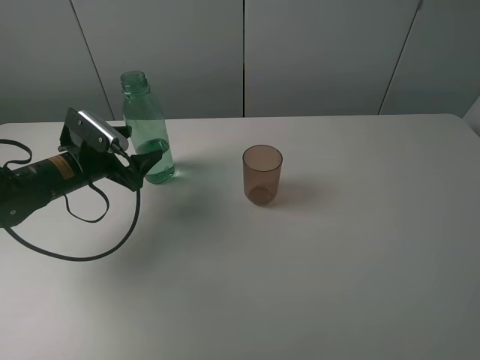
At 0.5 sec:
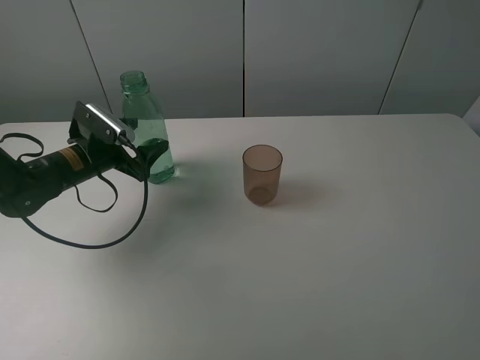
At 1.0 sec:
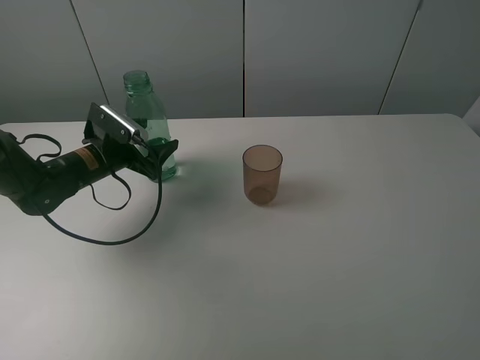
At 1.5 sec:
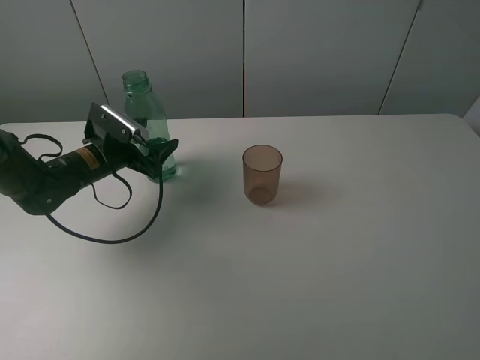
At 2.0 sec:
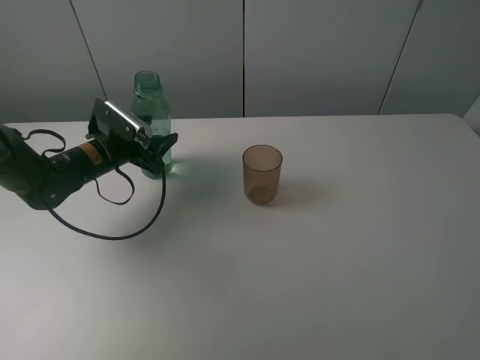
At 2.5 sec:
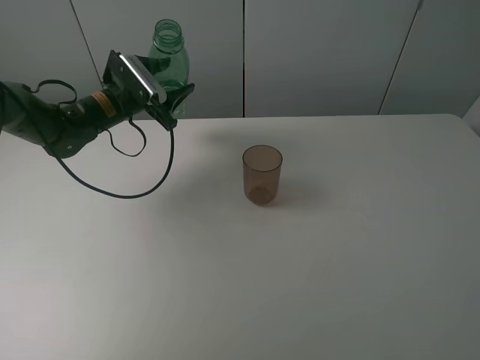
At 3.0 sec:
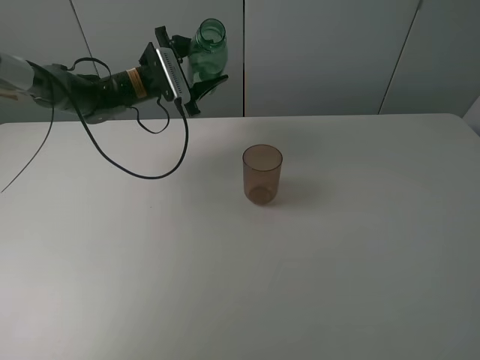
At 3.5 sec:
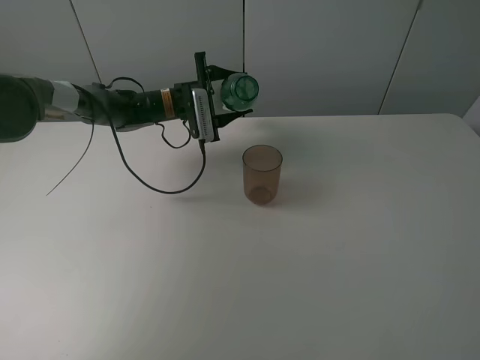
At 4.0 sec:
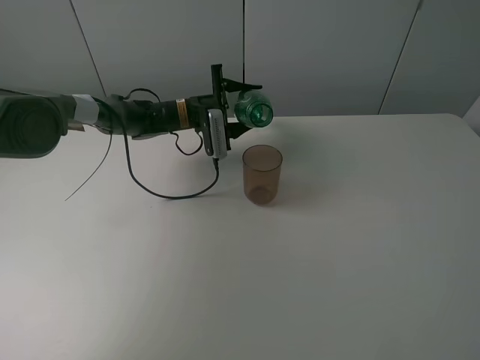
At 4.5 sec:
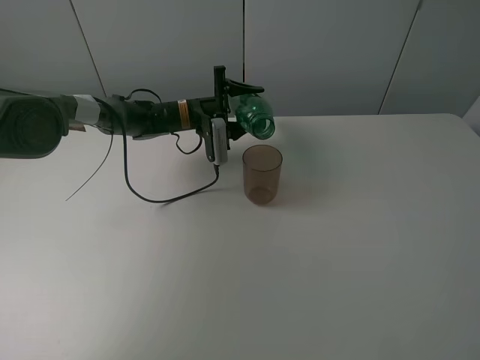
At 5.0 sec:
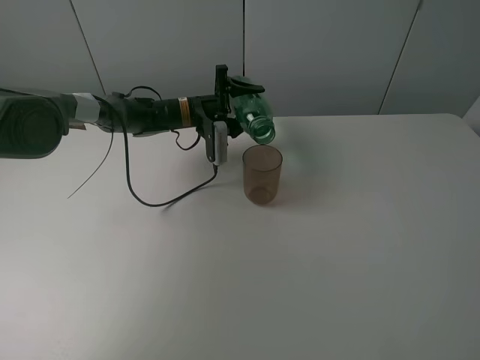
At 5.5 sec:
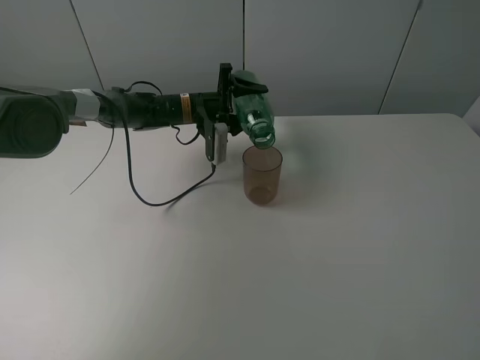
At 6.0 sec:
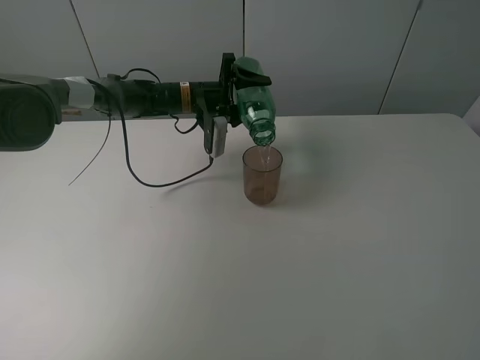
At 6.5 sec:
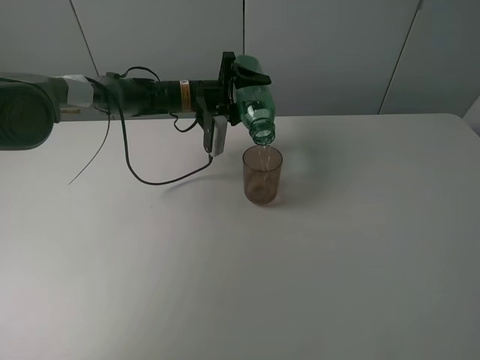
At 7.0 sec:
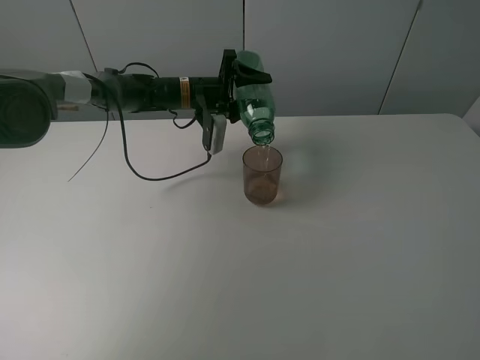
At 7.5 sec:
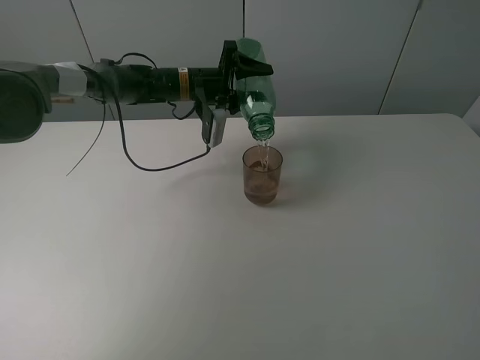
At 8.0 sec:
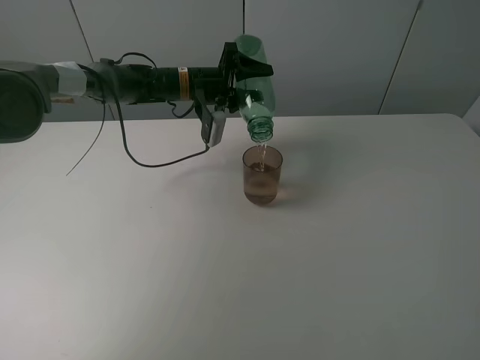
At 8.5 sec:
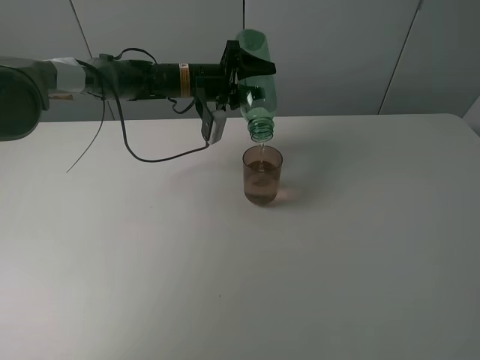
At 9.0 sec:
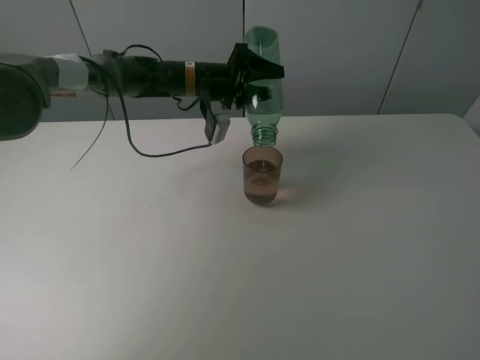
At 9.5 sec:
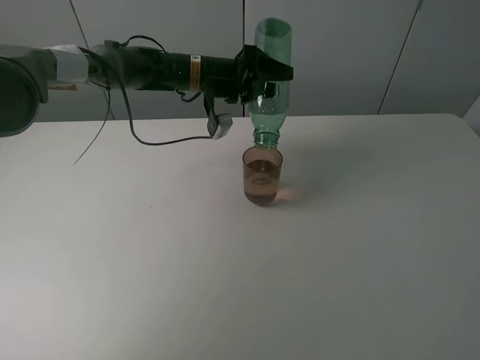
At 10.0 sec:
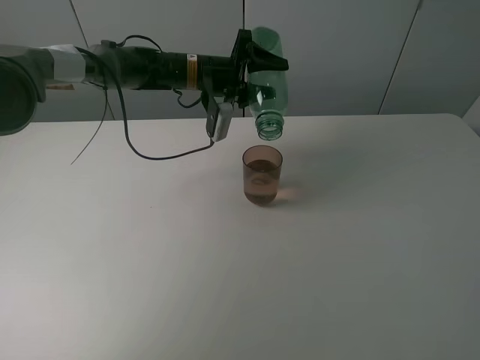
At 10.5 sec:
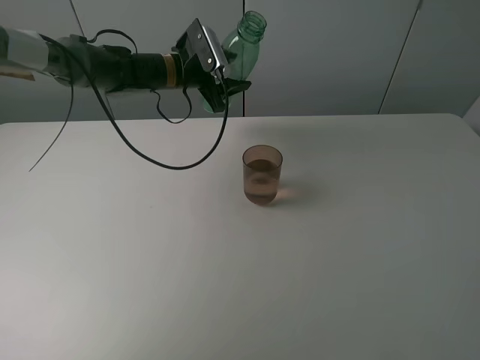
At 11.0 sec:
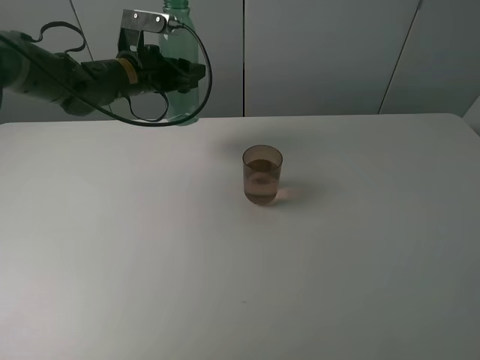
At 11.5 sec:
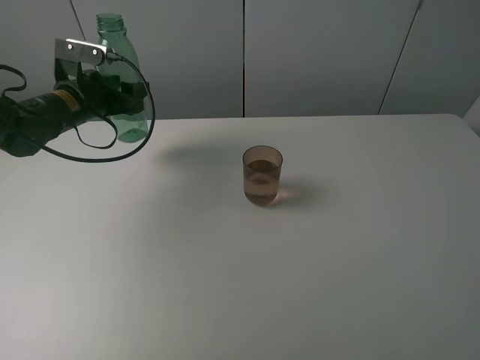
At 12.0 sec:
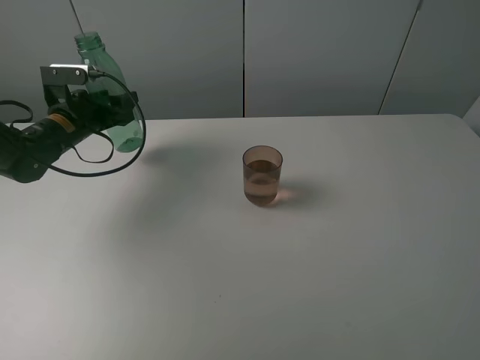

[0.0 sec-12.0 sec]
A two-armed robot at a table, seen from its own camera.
Task of the whole recording: pick up the bottle filled with water and pour it into the pink cup.
Step, 2.0 sec to 9.0 sec: Pour water from green bottle to pink cup with the left gripper.
0.0 sec to 2.0 sec: The left gripper closes up.
2.0 sec to 4.0 sec: The left gripper goes about 20 cm to the right and forward.
6.0 sec to 8.0 sec: The grippers move only a little.
8.0 sec to 10.0 sec: The grippers stay close to where they were, moving slightly.
10.0 sec to 12.0 sec: The left gripper moves to the left, about 20 cm.

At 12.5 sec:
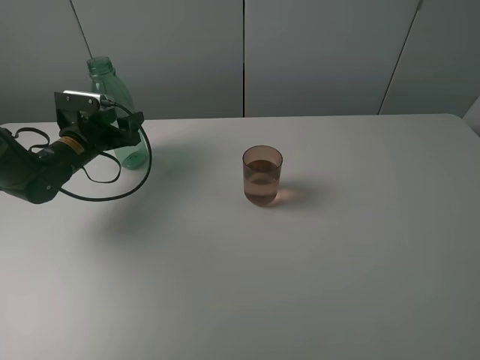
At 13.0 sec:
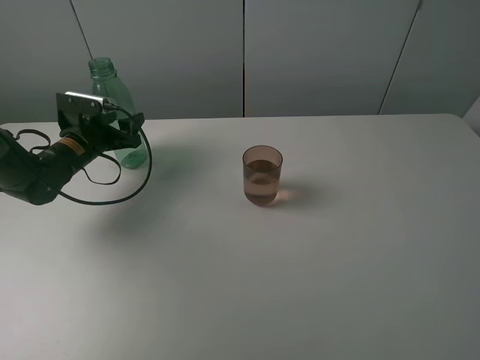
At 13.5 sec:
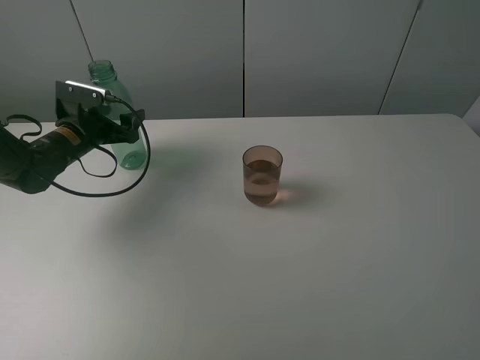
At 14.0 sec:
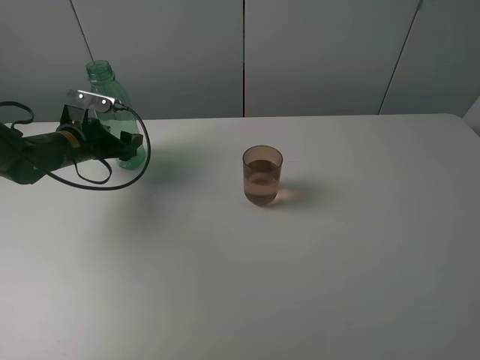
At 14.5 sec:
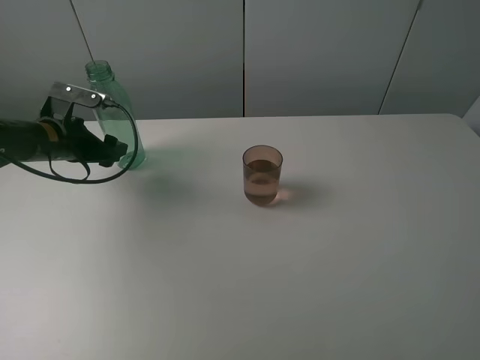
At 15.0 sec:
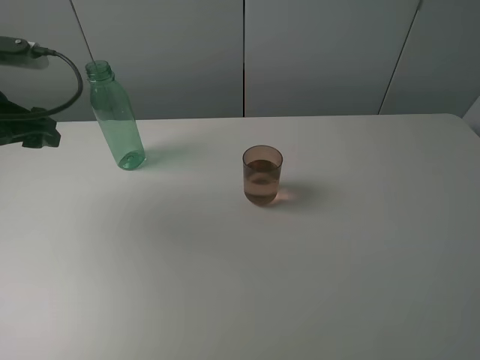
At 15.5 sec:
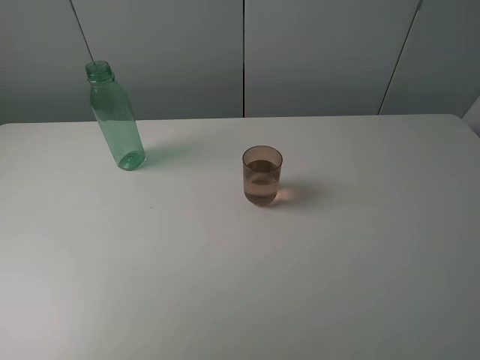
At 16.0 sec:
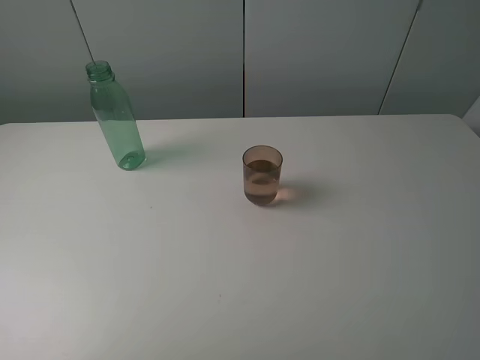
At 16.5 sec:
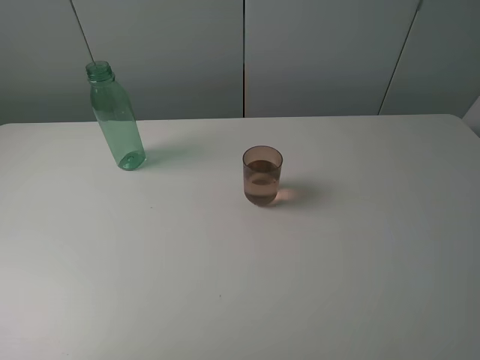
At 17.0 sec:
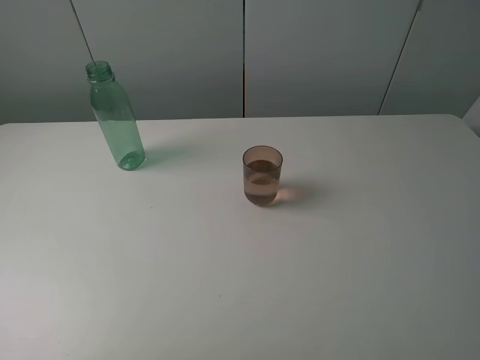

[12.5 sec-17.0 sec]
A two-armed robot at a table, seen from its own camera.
Task of the whole recording: pick up the bottle filled with water and pour it into the pink cup.
12.5 sec to 14.5 sec: The left gripper heads upward, covering roughly 5 cm, and opens its fingers.
14.5 sec to 17.0 sec: The left gripper travels backward and upward by about 40 cm.
